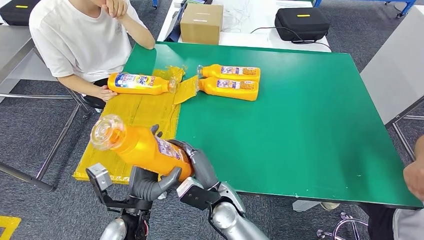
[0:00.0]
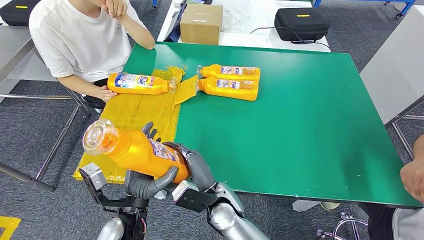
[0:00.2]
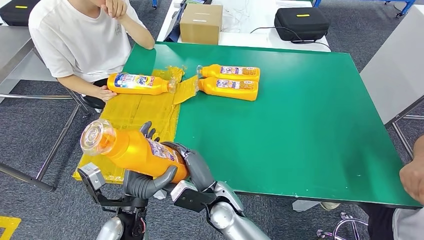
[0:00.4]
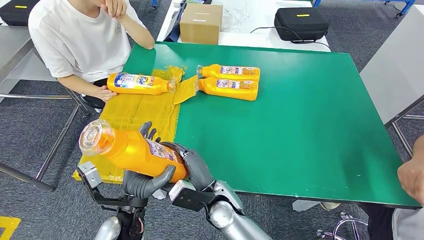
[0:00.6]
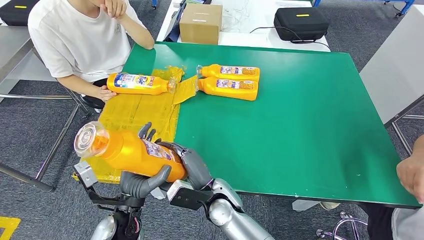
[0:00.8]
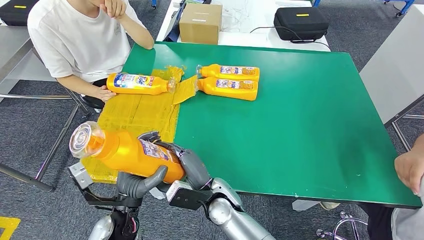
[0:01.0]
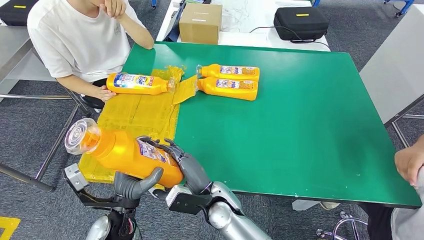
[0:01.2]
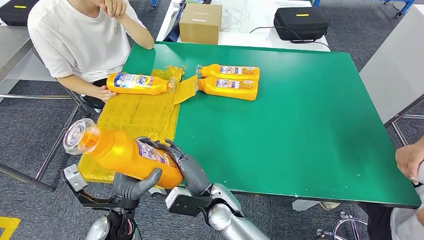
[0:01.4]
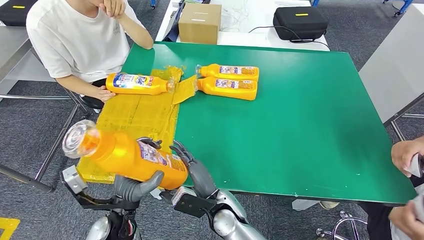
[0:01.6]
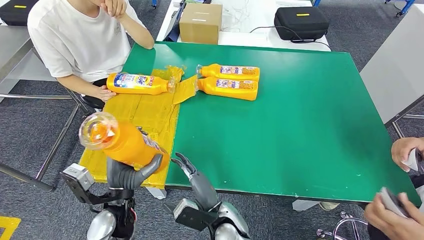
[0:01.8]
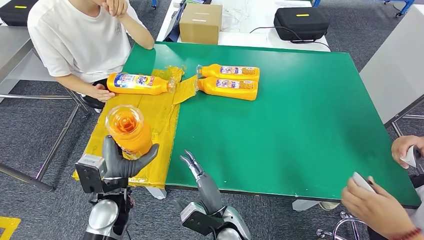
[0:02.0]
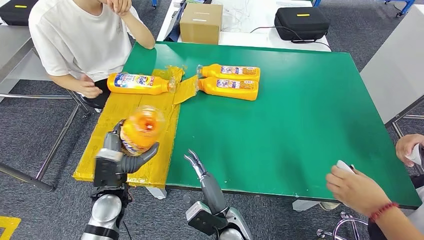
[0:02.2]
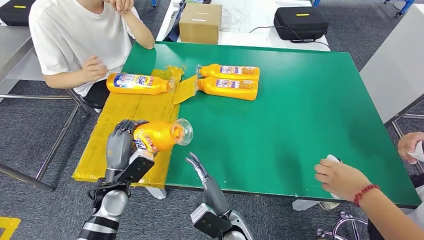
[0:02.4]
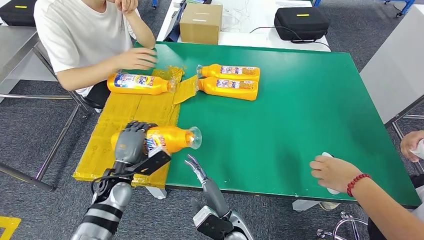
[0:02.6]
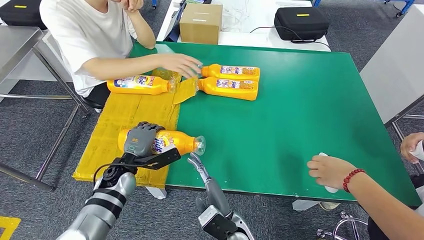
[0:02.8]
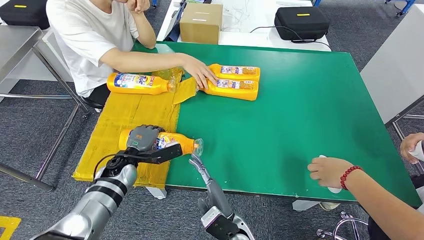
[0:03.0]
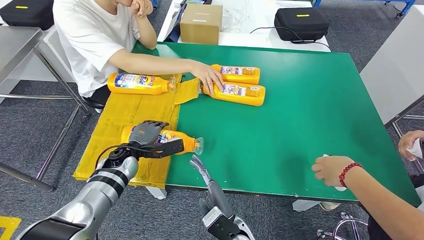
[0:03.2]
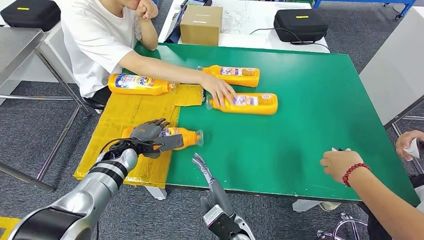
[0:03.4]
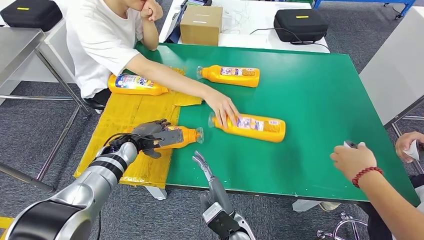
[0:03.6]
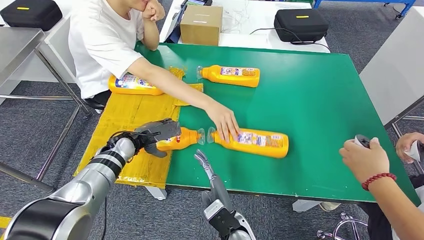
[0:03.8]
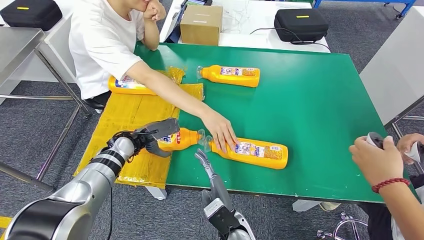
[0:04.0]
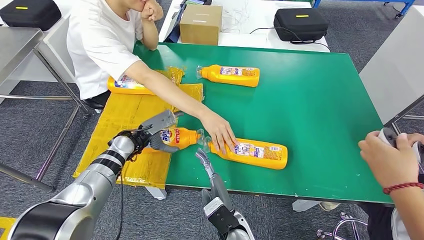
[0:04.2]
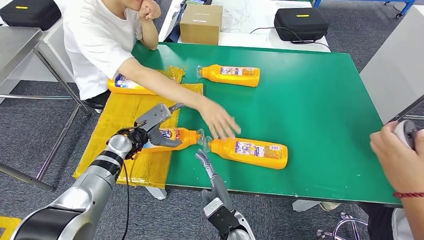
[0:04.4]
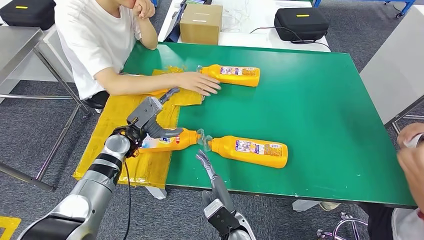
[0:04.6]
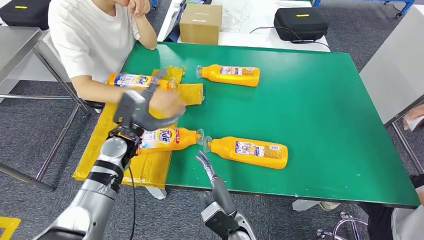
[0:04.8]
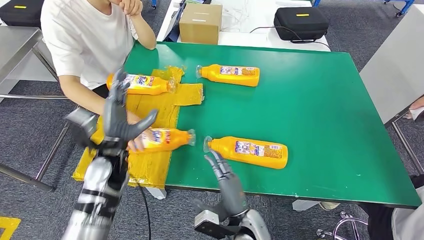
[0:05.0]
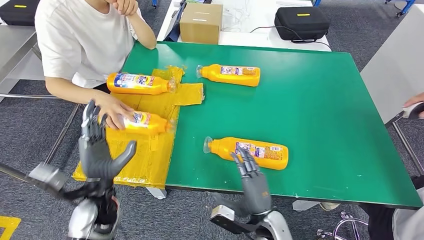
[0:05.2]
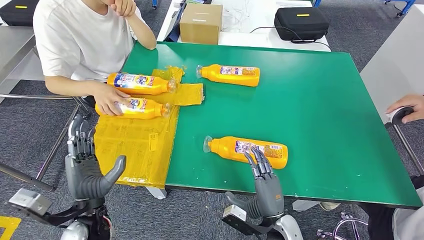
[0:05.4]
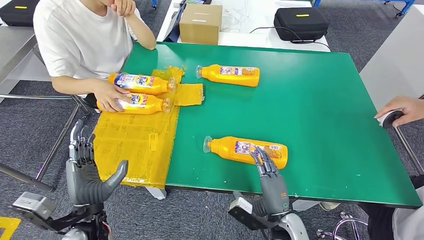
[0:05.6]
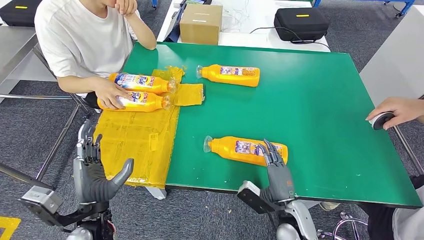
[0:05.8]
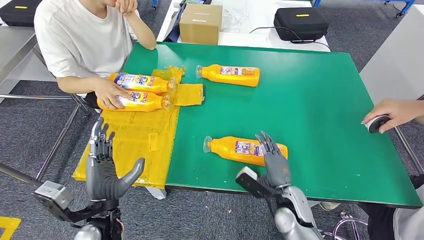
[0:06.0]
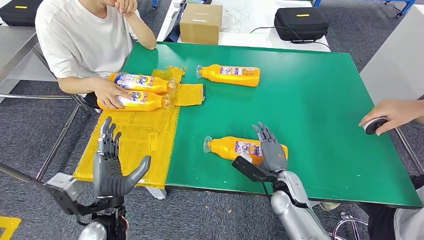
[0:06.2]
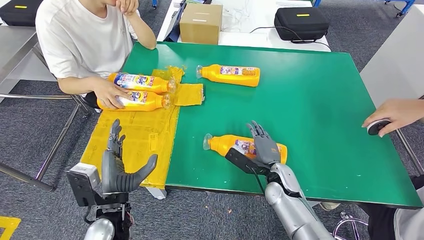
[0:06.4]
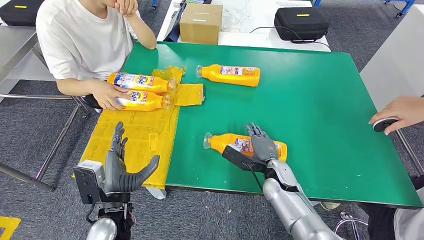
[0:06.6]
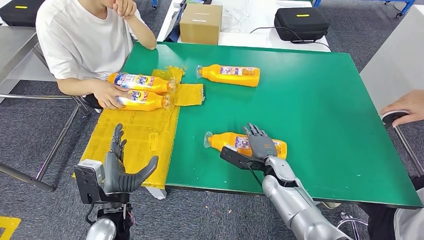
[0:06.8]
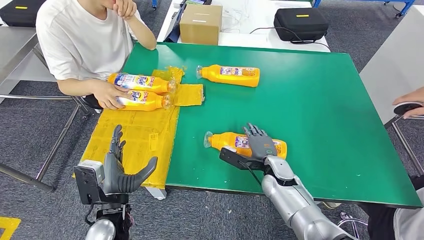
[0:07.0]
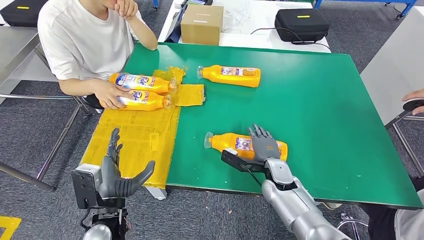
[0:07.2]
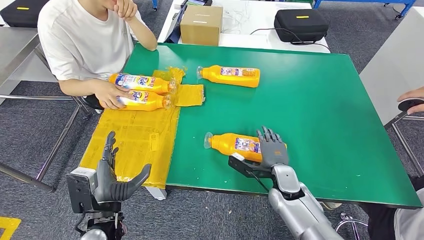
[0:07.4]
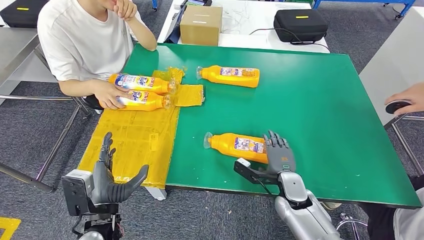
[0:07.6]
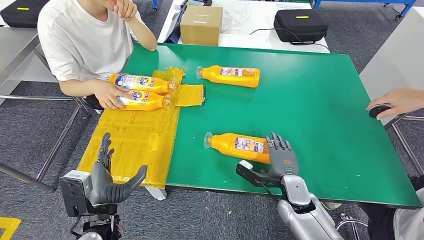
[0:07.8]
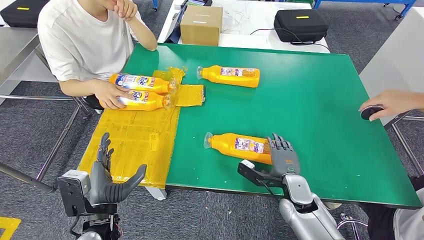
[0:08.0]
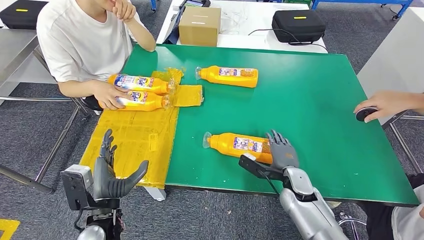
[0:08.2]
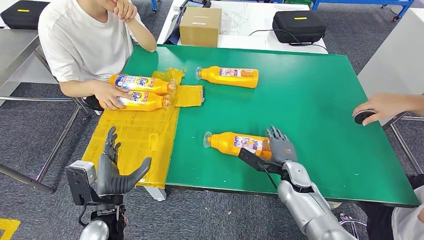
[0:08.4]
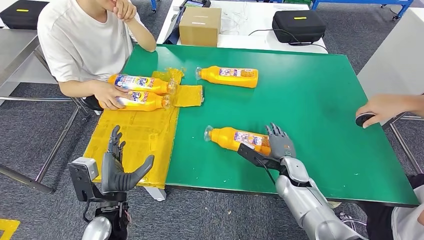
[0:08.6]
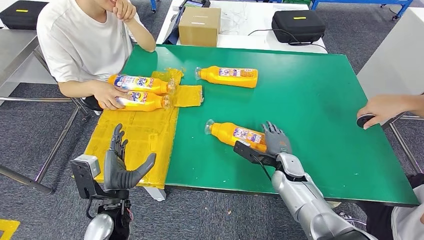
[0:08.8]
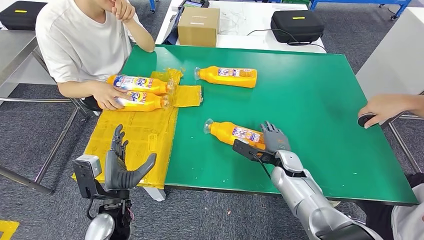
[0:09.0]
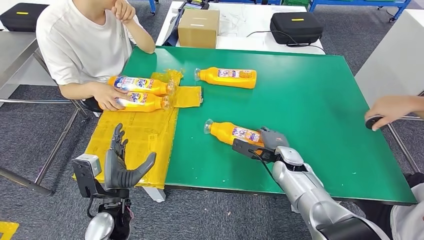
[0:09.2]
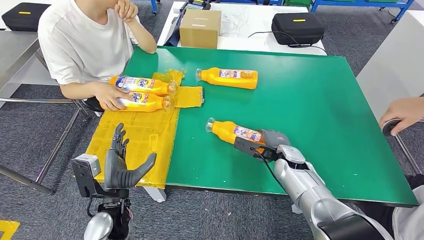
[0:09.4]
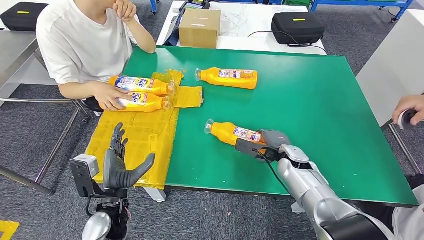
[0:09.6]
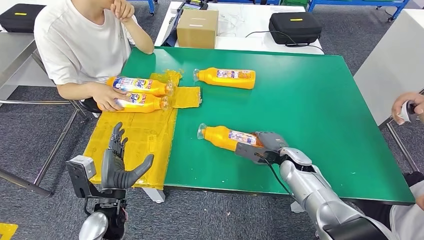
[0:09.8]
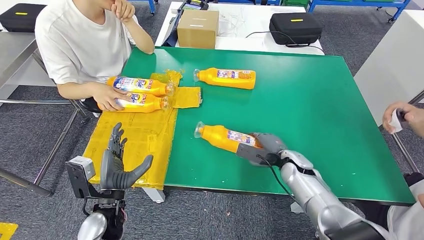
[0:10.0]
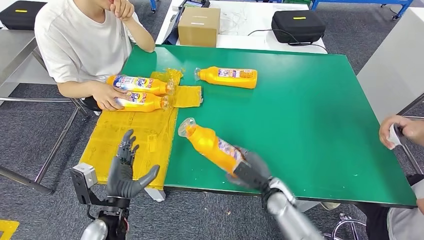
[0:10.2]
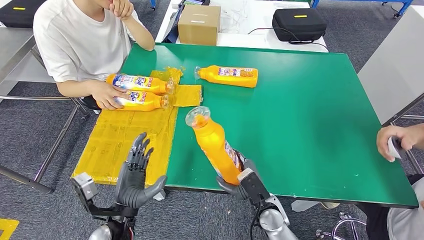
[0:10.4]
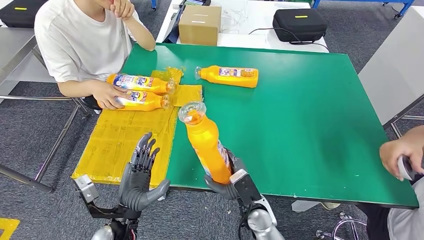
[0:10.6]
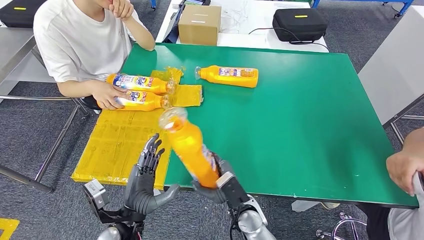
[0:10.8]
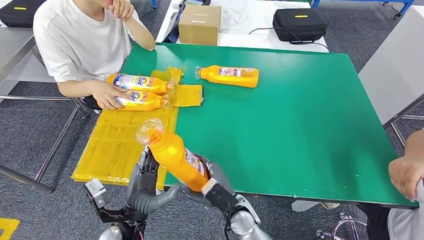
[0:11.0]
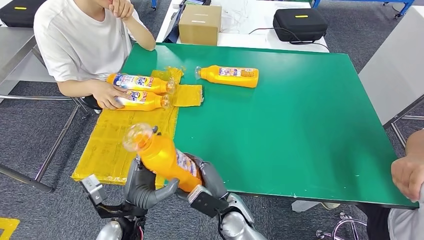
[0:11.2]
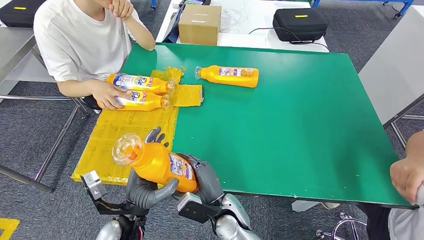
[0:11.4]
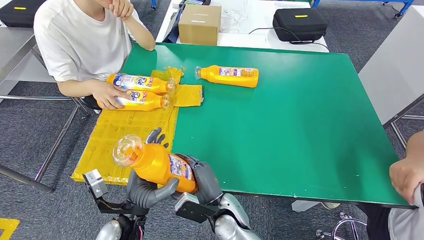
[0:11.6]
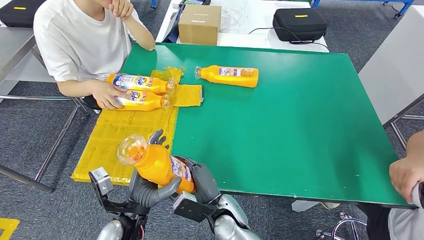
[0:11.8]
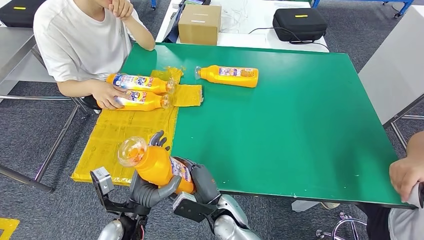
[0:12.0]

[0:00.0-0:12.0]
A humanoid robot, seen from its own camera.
Step, 0:00.0 to 0:05.8: Flip the bottle to face forward.
Step, 0:06.2 to 0:11.4: Pick up the bottle from the table.
0:00.0 to 0:01.6: The hands move only a little.
0:10.4 to 0:12.0: The right hand is displaced to the left by roughly 10 cm.

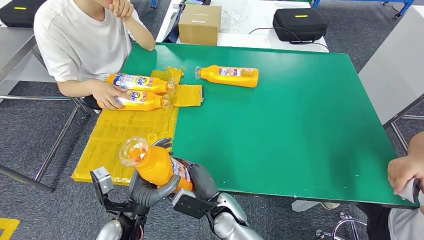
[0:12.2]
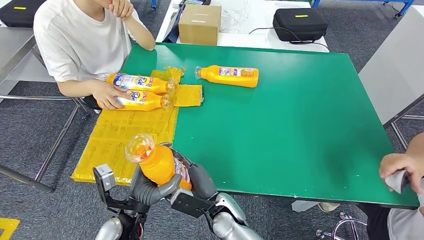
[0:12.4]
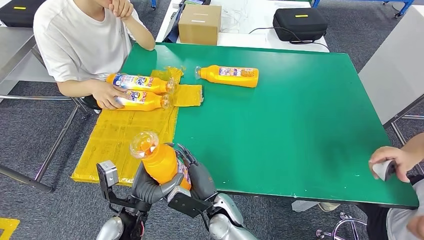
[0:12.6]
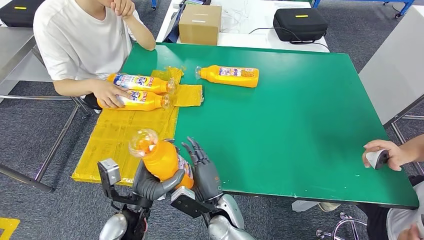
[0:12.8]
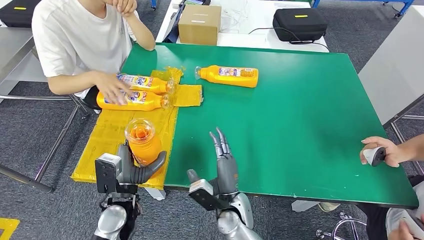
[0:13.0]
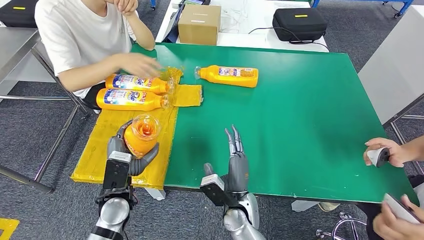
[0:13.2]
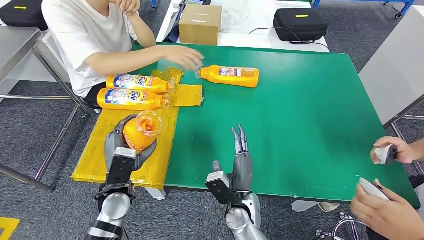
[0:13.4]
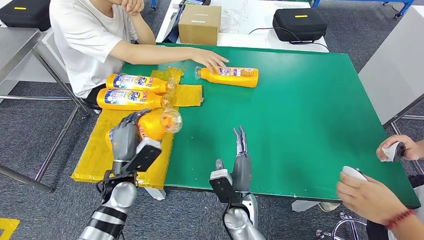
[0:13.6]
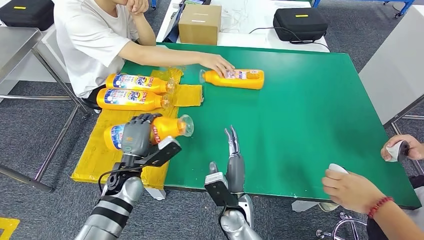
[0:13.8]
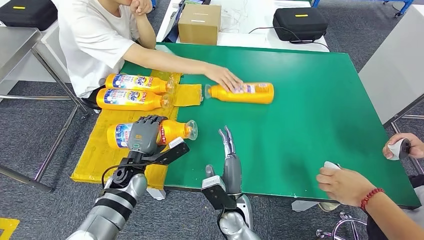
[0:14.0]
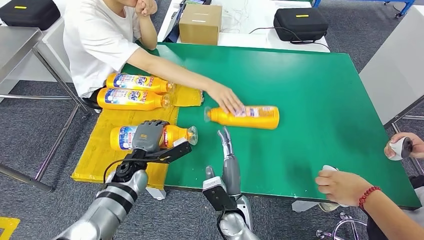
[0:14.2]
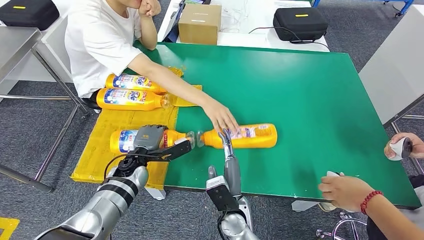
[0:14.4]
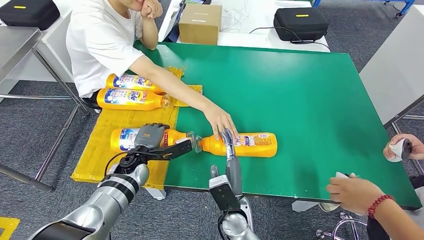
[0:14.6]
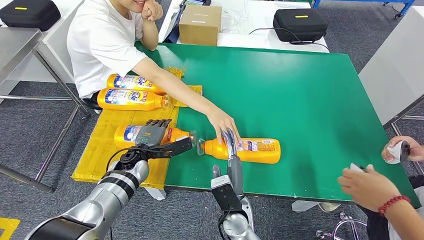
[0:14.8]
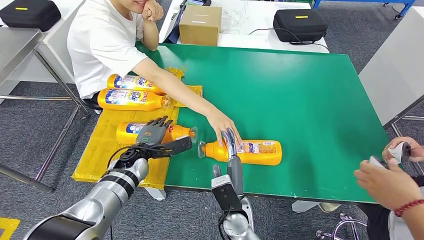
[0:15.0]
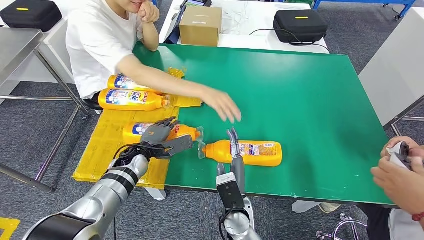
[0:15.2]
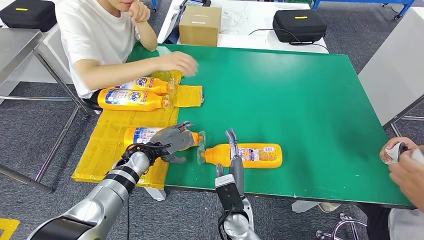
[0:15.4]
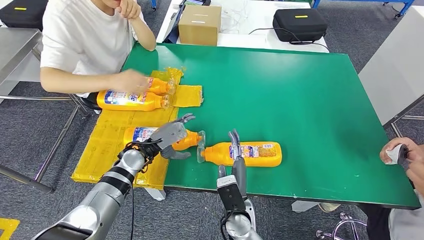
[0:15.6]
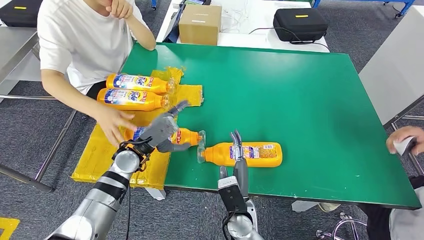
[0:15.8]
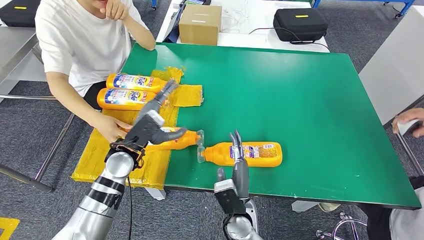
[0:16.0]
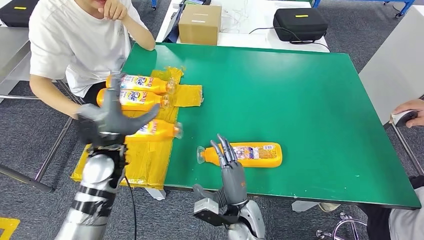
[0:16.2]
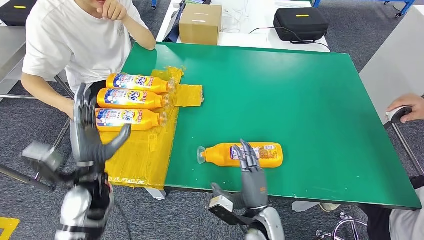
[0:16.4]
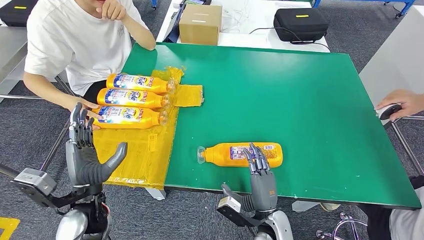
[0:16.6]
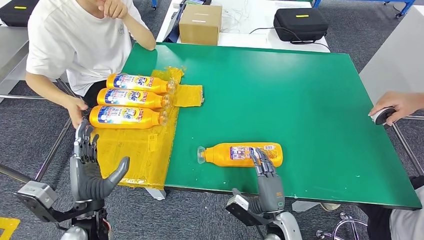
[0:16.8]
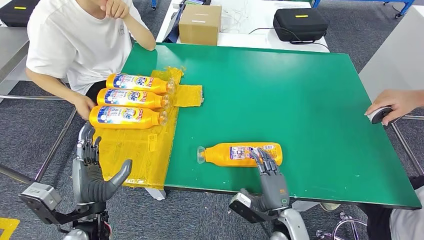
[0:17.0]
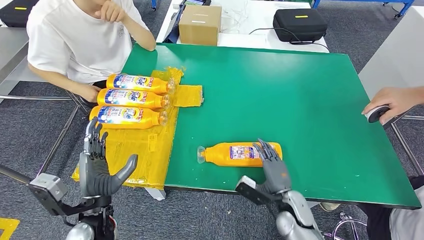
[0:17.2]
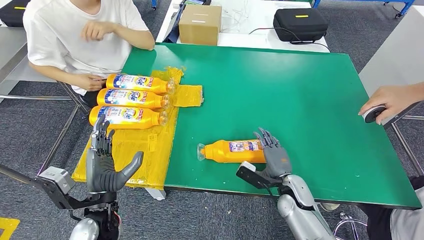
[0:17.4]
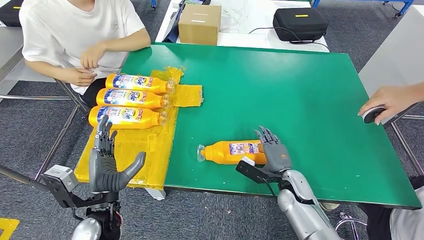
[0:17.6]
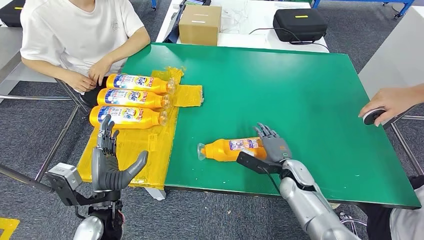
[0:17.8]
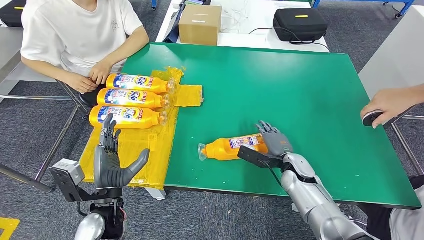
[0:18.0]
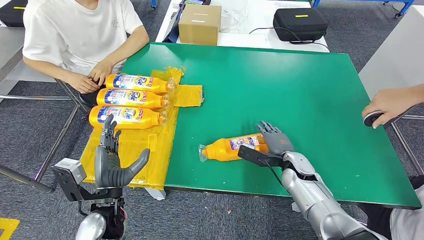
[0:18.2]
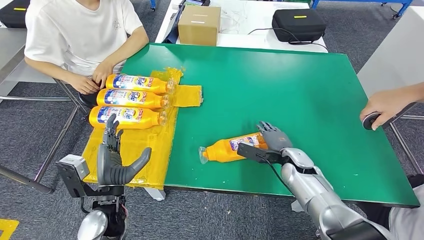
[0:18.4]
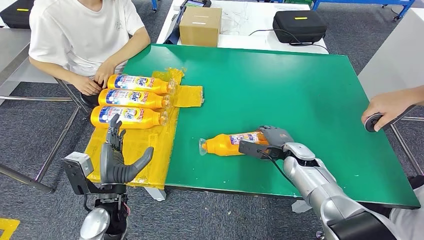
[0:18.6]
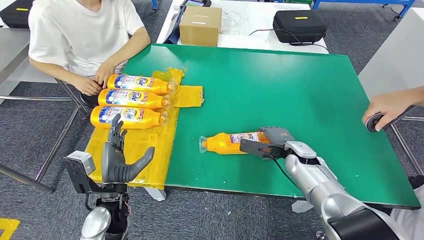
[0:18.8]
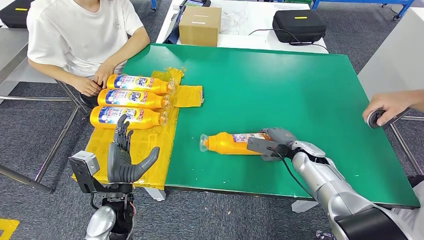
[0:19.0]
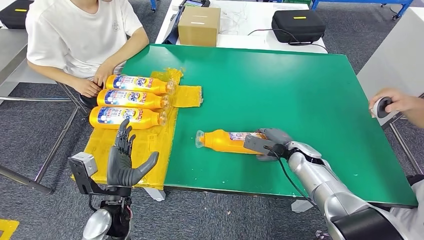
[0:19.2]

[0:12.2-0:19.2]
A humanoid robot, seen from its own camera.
Step, 0:12.2 to 0:17.2: Flip the bottle to face forward.
